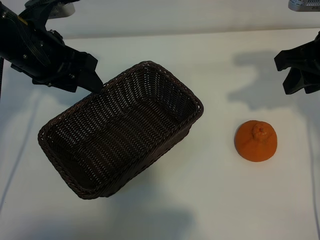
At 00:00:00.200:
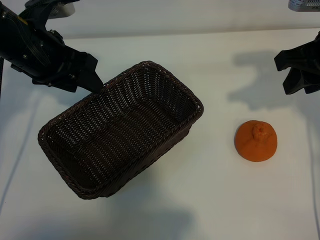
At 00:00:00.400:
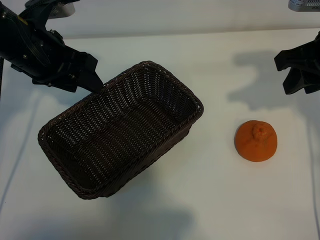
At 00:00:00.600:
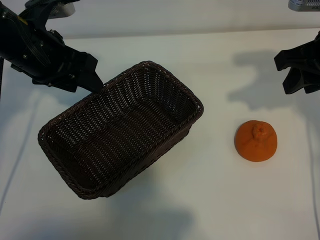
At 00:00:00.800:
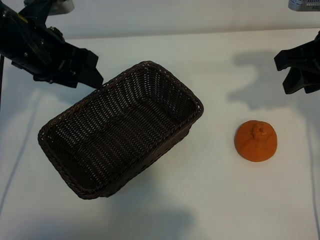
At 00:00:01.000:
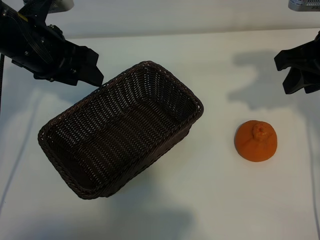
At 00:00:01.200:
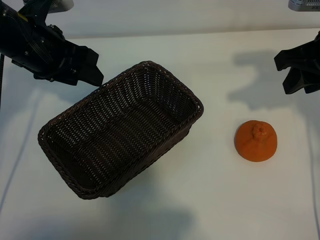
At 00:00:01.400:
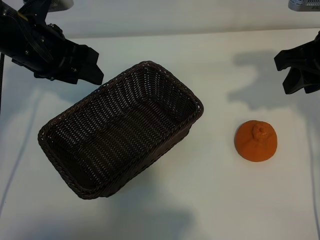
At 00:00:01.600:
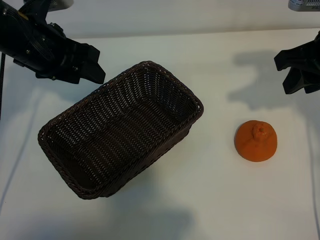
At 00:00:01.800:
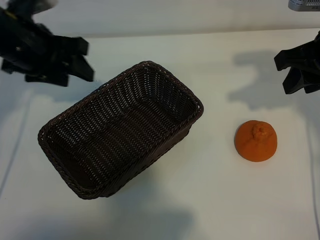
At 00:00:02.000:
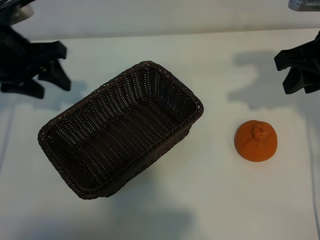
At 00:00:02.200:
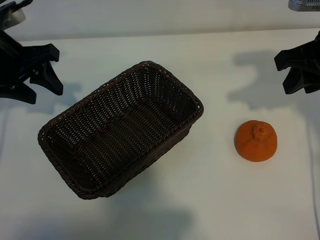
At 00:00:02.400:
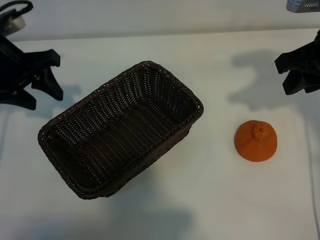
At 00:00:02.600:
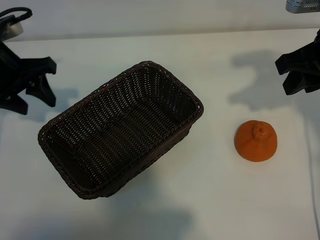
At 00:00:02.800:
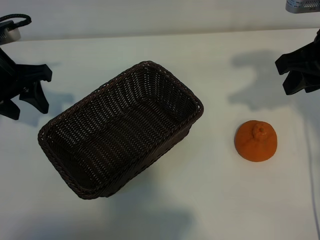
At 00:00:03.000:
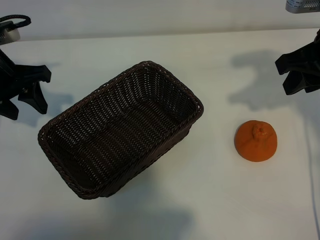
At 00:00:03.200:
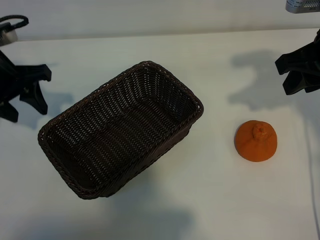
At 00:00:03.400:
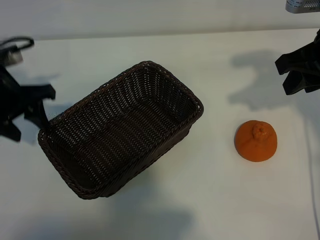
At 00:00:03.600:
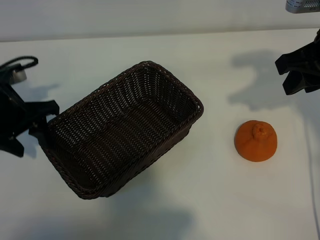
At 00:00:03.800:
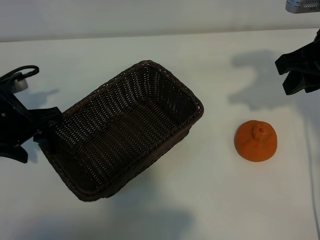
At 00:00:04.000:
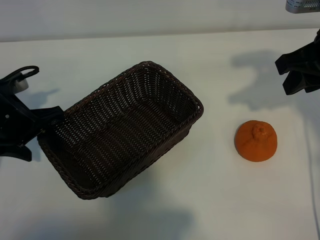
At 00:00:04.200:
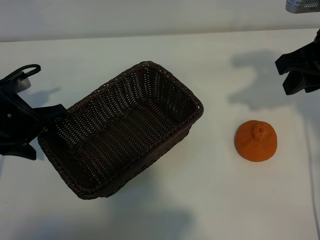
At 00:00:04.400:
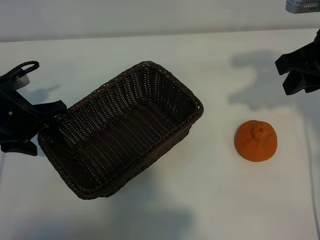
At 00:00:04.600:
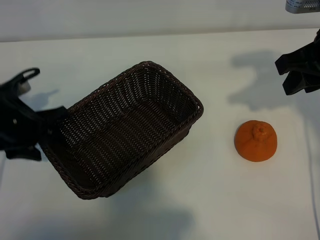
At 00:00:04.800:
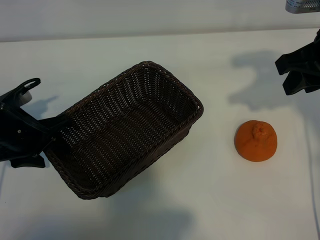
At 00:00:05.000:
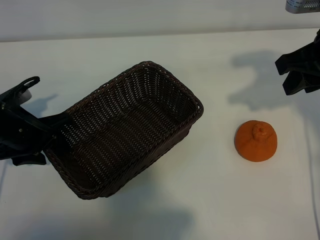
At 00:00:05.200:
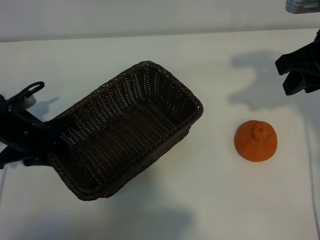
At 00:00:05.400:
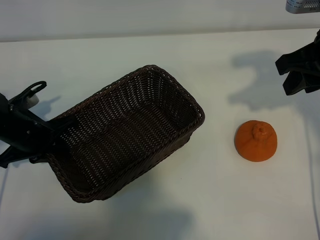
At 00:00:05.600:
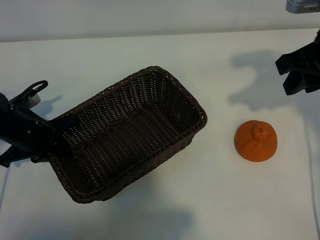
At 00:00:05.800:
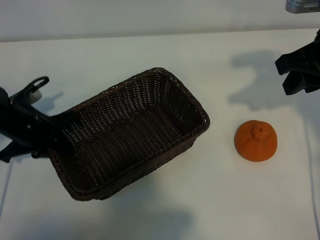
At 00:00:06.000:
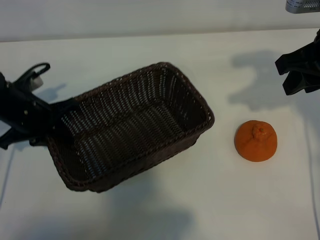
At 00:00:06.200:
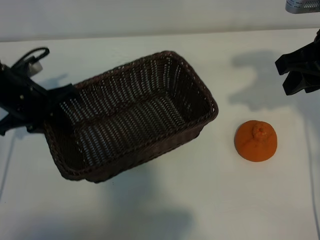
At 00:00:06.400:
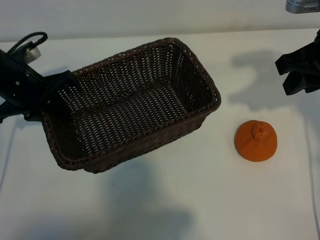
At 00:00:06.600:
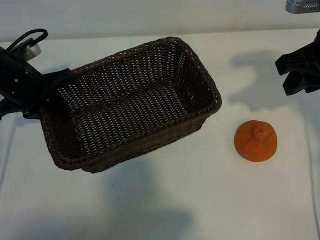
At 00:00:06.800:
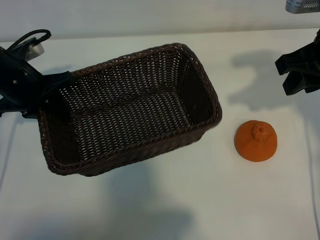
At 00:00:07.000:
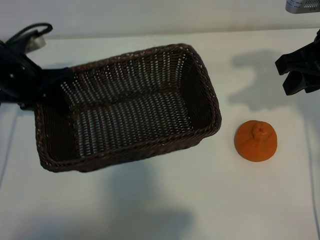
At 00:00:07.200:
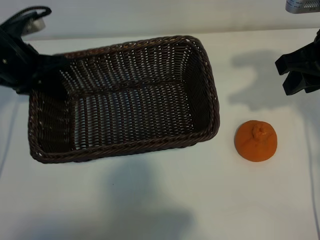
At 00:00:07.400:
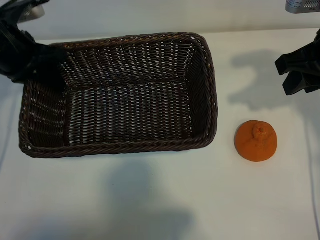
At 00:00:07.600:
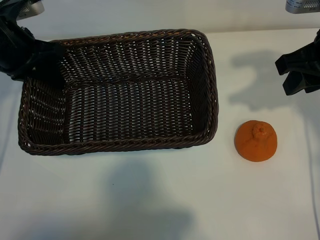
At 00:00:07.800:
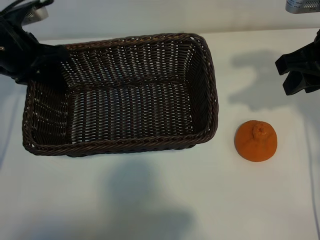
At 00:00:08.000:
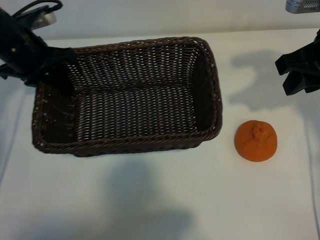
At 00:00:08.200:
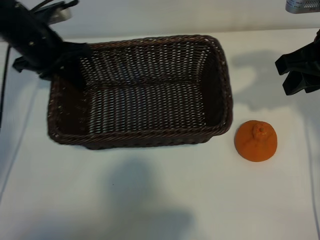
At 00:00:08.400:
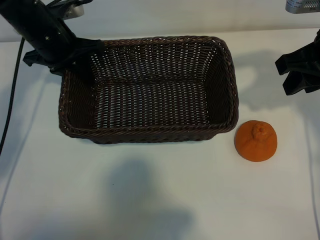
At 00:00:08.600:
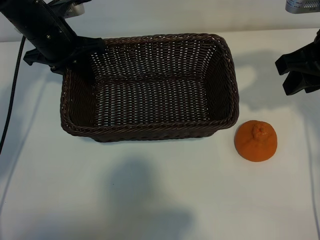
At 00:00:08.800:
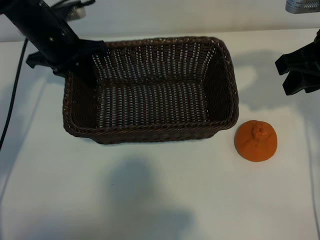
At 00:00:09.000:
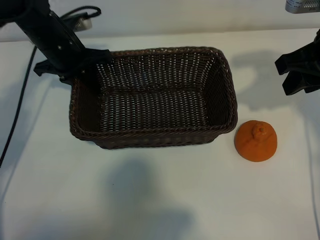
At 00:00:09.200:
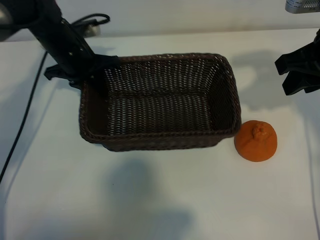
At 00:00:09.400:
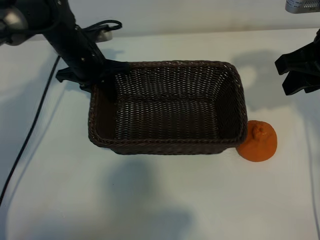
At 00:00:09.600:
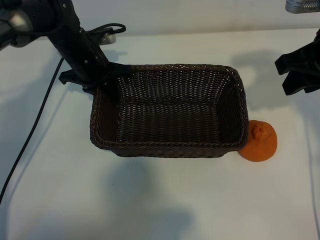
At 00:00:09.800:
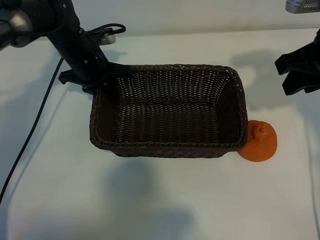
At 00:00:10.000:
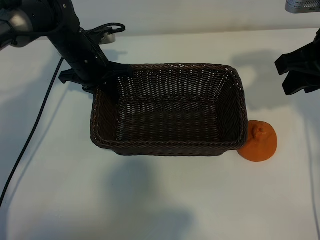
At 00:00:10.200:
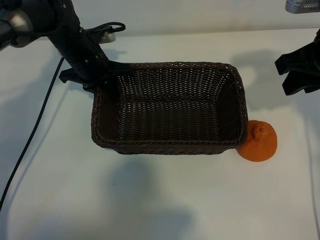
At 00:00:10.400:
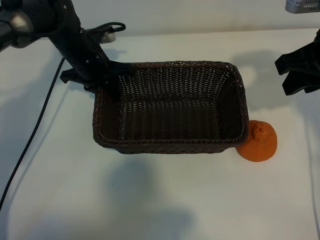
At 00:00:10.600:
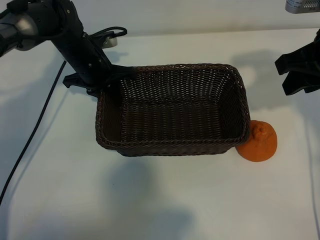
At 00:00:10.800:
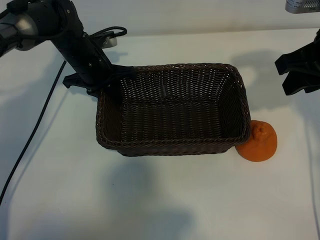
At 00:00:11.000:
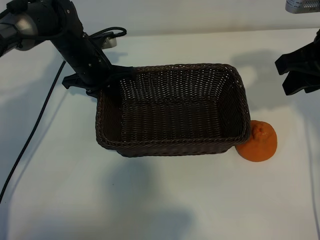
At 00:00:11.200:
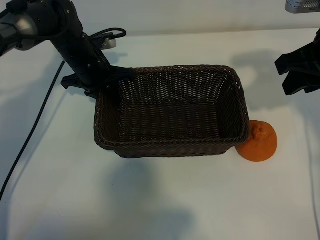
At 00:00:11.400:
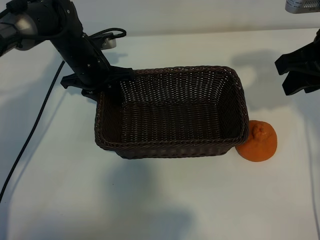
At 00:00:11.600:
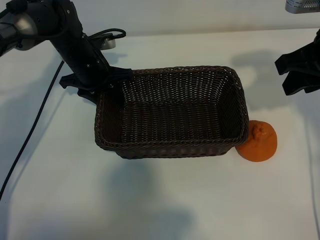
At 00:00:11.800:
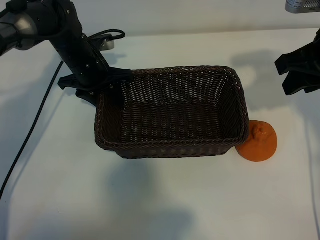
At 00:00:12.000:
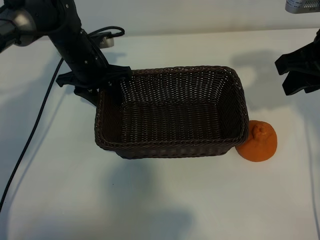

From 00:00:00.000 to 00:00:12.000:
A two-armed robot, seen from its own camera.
Task of the whole recording: pick up the orange and put it into the basket.
Step, from 00:00:00.800 to 00:00:05.200: Grasp the basket with left gripper.
Step, from 00:00:05.600 to 00:00:11.200: Place the basket in the center of view with left gripper.

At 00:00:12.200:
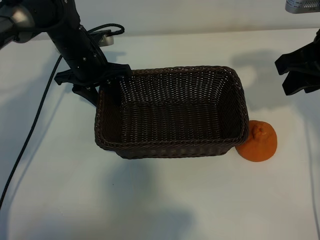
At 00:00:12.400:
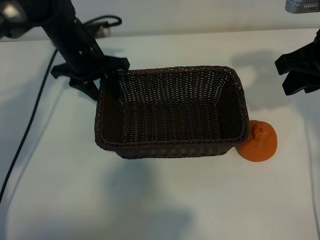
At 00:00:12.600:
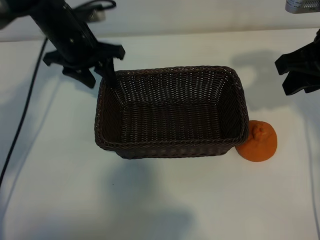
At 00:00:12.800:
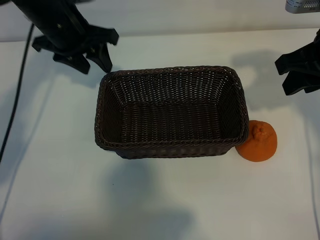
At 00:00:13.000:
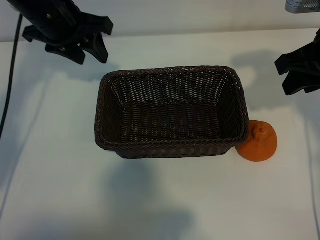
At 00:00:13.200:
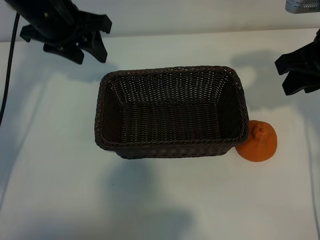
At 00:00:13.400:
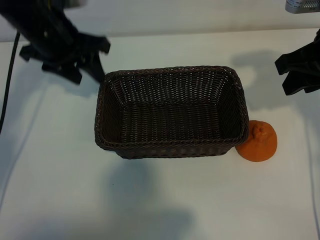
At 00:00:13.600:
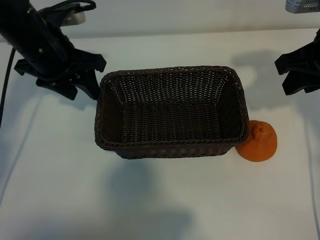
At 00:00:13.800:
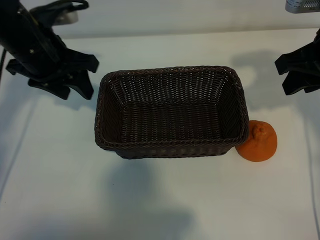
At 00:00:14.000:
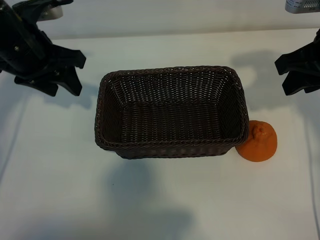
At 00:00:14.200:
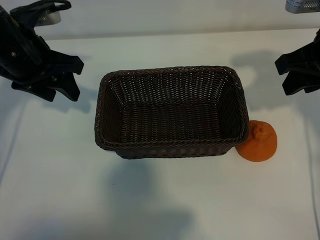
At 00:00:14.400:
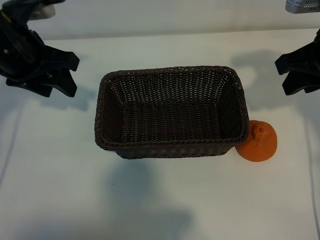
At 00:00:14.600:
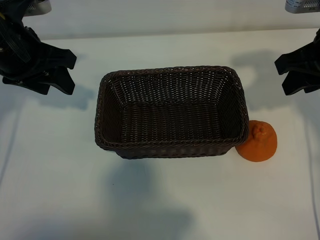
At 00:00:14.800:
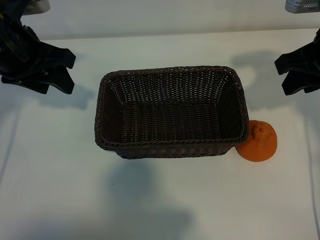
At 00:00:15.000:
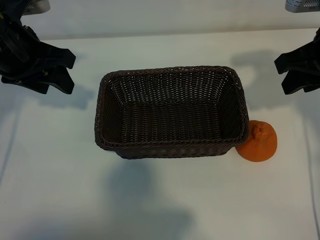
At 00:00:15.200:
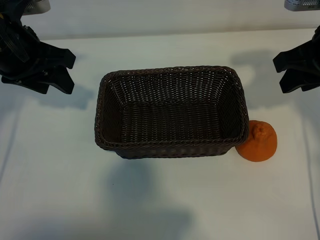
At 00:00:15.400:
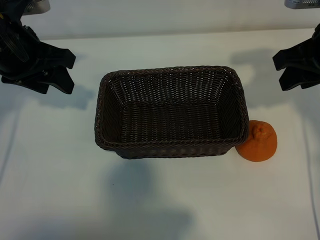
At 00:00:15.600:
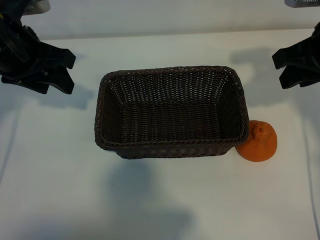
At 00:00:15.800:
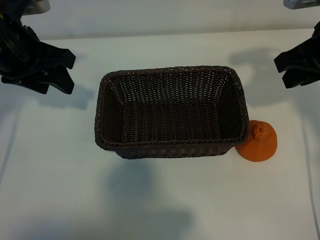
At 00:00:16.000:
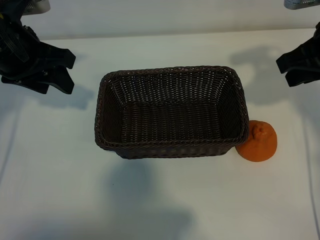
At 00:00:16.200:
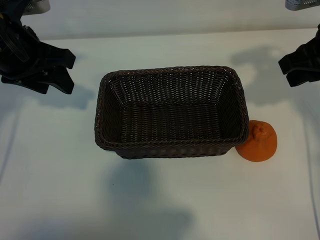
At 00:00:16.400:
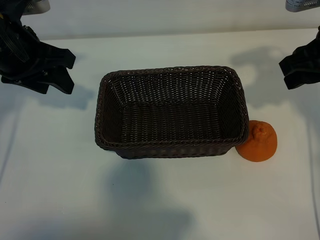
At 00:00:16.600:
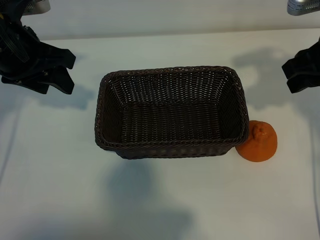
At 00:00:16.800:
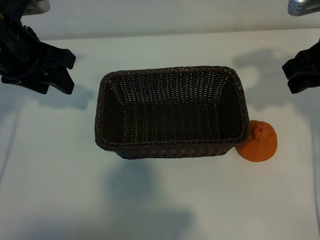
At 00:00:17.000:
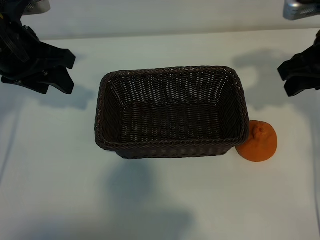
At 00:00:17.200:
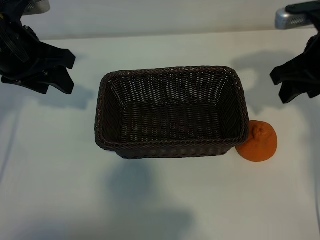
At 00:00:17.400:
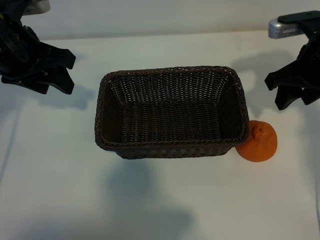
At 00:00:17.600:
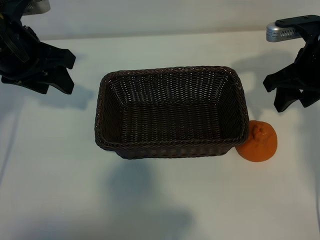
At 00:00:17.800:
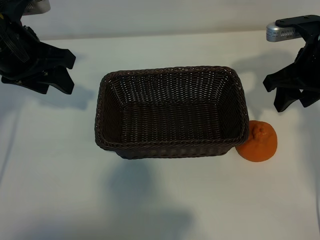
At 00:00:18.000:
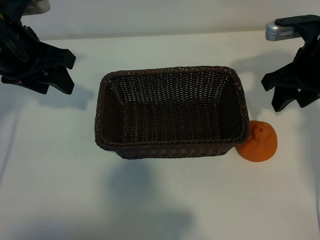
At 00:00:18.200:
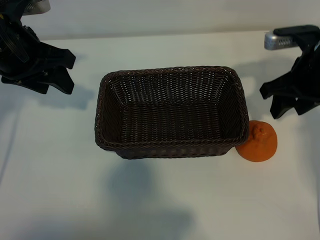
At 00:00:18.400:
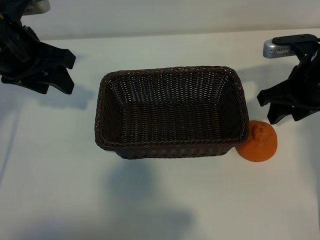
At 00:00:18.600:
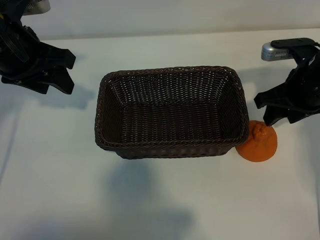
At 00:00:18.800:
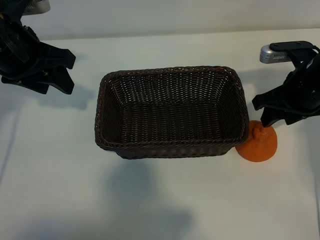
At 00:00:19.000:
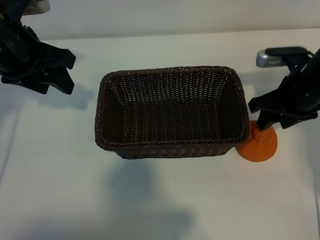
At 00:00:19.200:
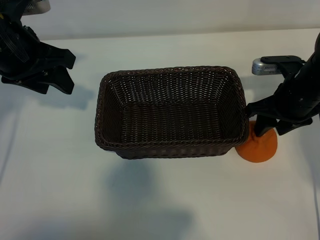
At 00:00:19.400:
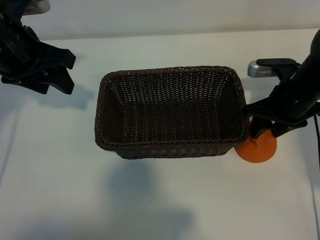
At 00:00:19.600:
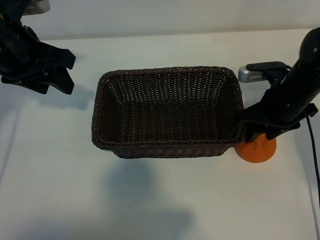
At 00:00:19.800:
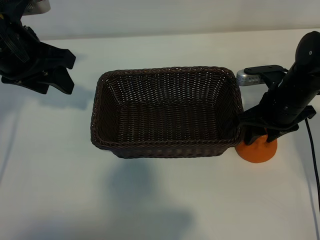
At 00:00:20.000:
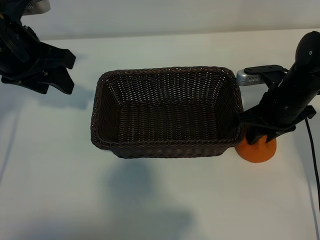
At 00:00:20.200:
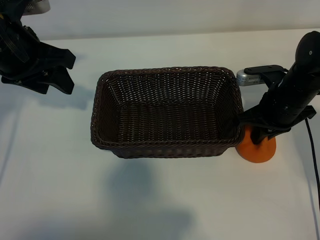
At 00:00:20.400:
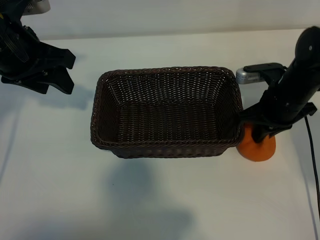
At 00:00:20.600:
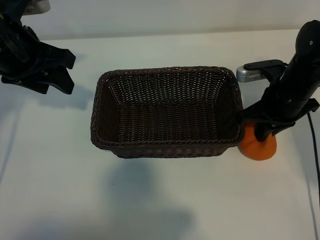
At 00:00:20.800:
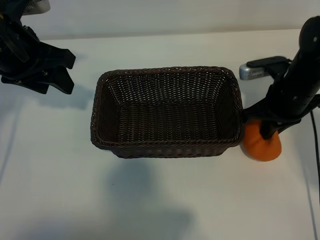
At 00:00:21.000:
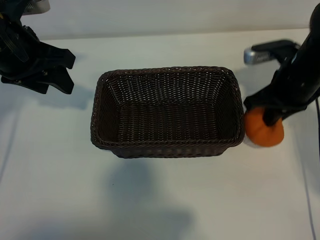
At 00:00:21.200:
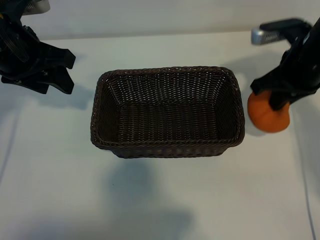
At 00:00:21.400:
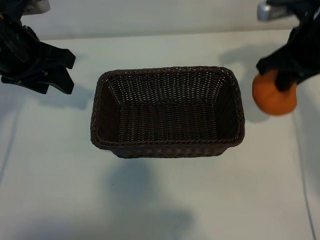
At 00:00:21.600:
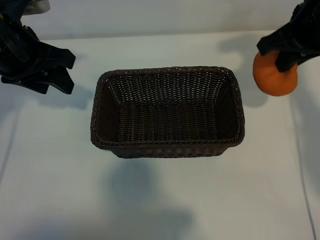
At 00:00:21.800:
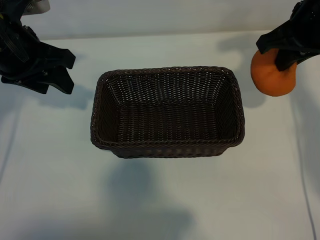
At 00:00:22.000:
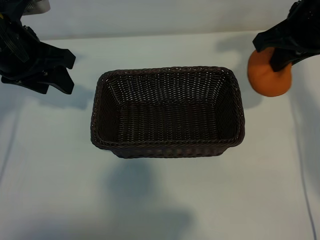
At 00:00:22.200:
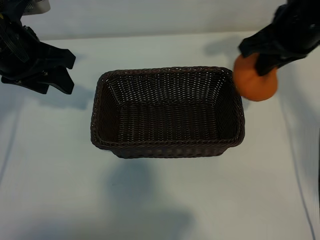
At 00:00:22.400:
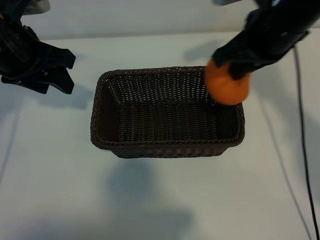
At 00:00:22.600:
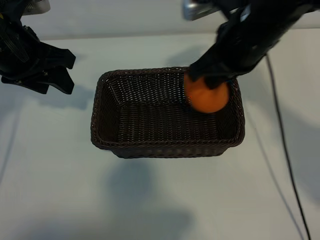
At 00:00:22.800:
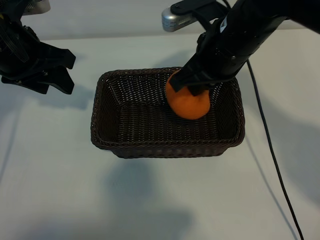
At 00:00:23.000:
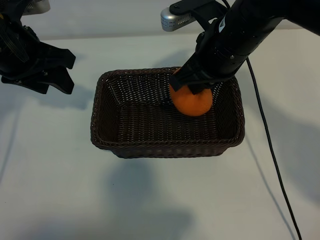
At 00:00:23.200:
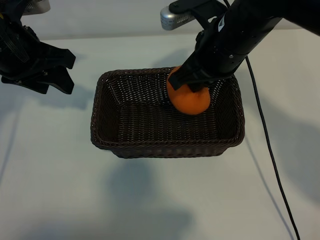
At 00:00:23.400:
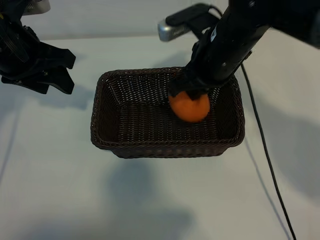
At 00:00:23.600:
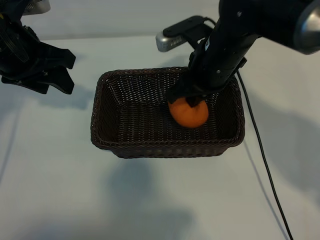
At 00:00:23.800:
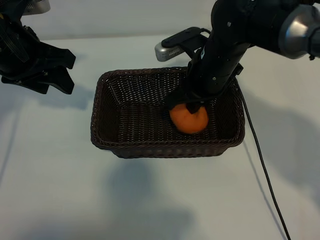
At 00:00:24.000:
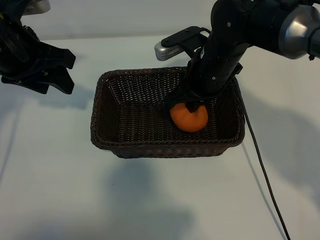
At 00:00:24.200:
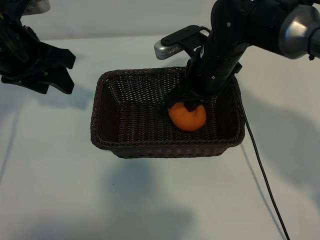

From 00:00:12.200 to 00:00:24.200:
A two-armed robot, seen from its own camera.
Task of the whole recording: pick up the orange and put it into the basket.
Step, from 00:00:12.200 to 00:00:20.000: Grasp the orange with right gripper.
